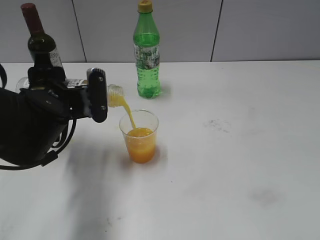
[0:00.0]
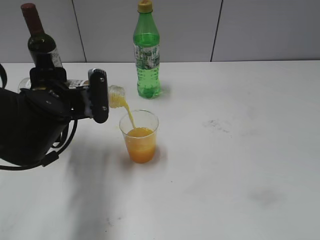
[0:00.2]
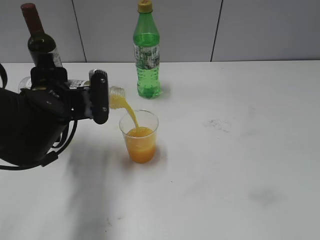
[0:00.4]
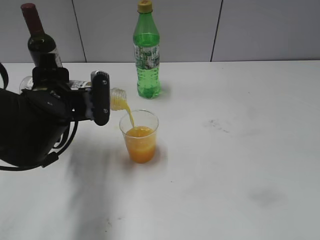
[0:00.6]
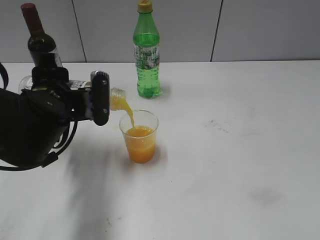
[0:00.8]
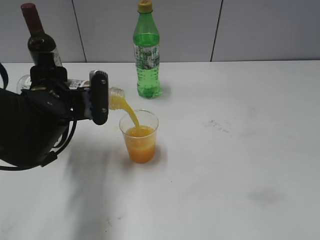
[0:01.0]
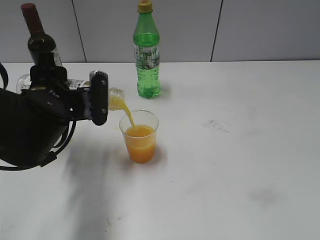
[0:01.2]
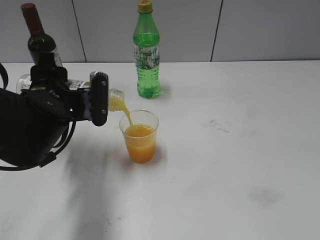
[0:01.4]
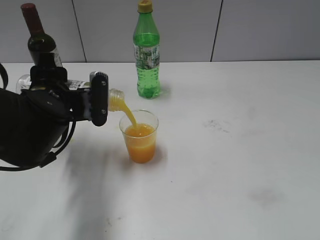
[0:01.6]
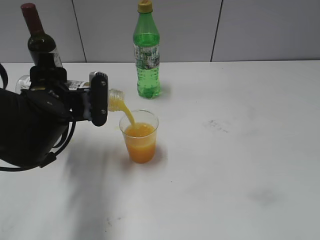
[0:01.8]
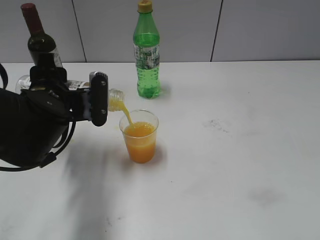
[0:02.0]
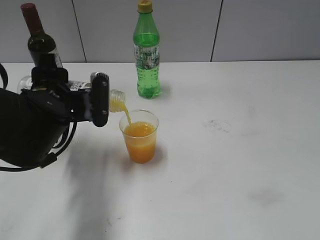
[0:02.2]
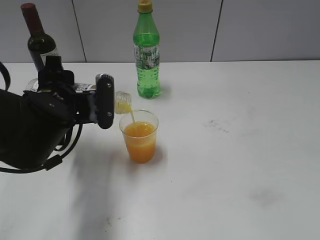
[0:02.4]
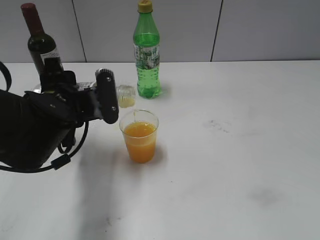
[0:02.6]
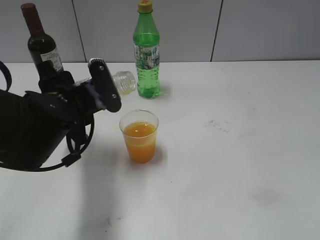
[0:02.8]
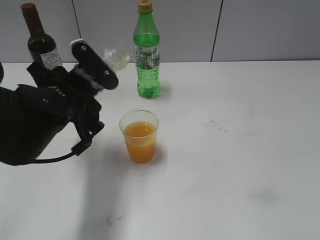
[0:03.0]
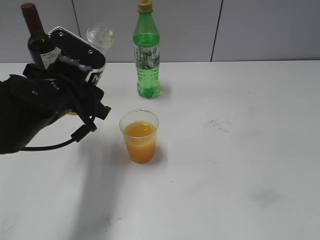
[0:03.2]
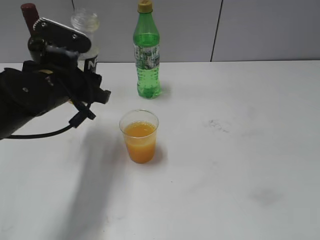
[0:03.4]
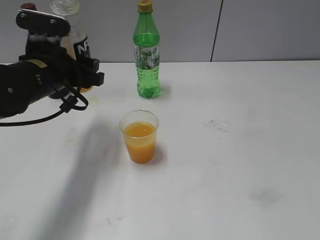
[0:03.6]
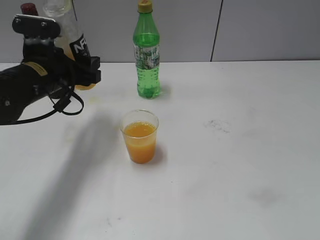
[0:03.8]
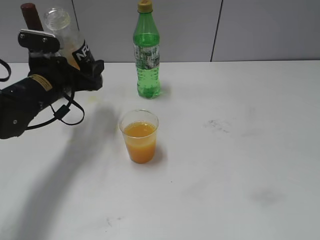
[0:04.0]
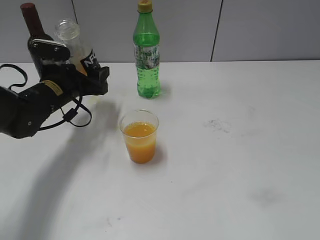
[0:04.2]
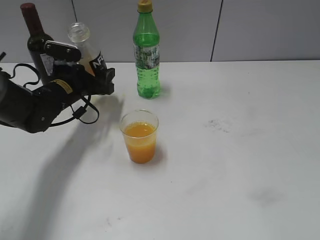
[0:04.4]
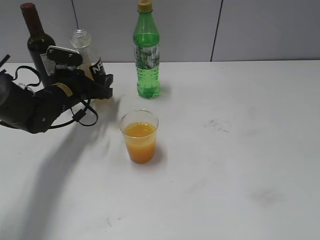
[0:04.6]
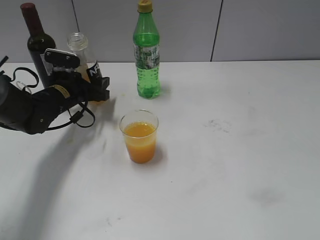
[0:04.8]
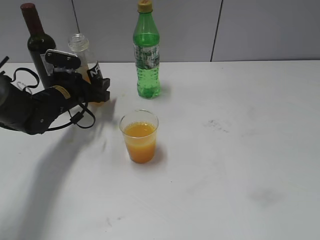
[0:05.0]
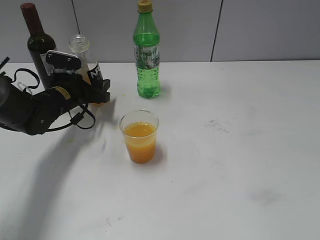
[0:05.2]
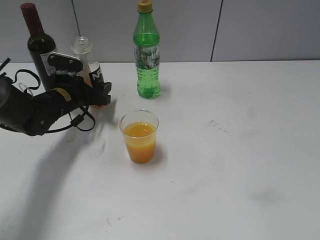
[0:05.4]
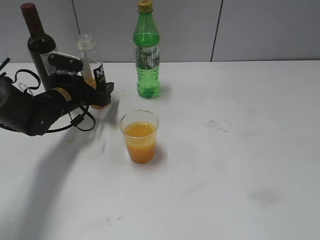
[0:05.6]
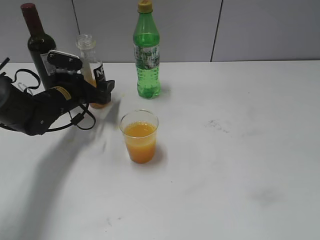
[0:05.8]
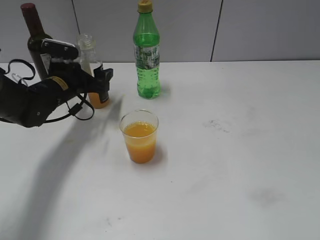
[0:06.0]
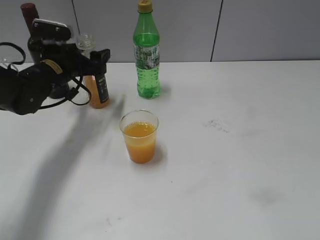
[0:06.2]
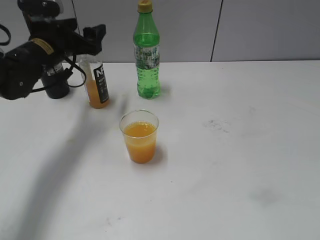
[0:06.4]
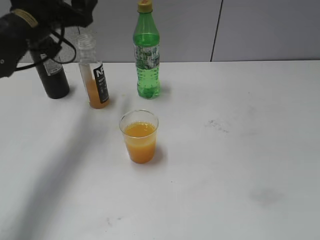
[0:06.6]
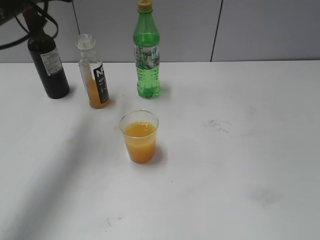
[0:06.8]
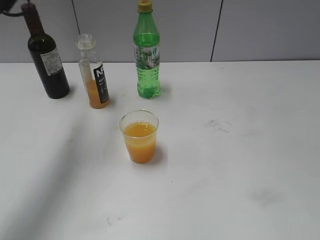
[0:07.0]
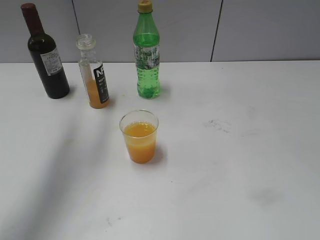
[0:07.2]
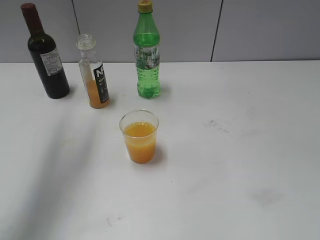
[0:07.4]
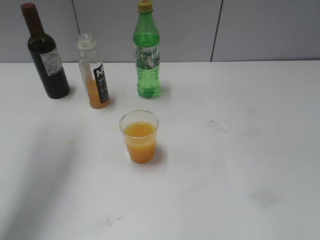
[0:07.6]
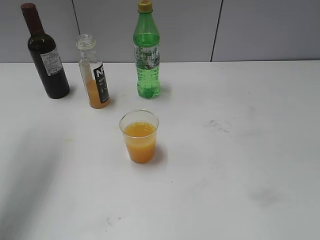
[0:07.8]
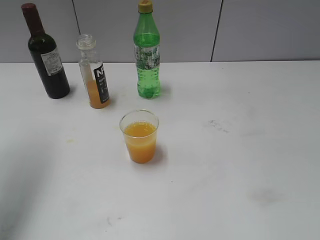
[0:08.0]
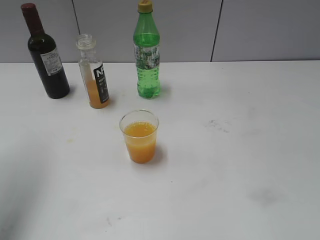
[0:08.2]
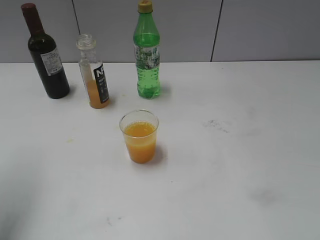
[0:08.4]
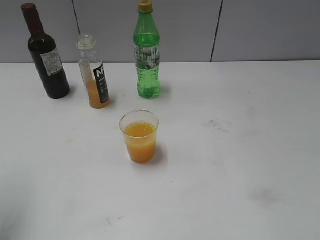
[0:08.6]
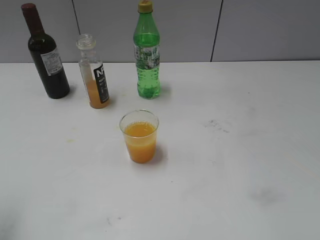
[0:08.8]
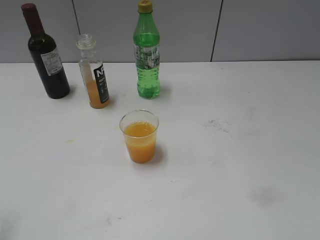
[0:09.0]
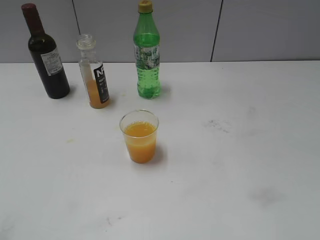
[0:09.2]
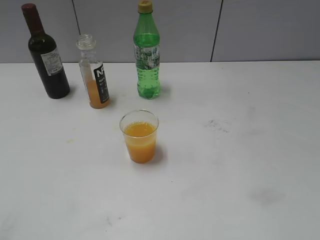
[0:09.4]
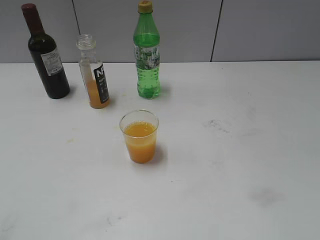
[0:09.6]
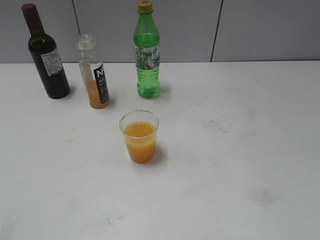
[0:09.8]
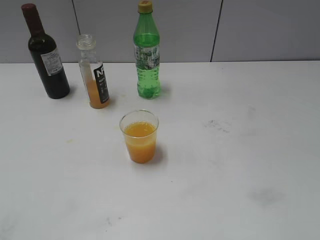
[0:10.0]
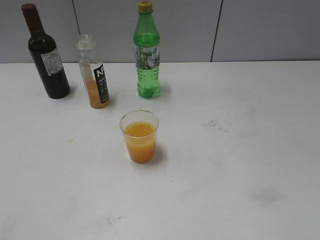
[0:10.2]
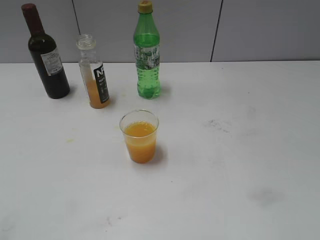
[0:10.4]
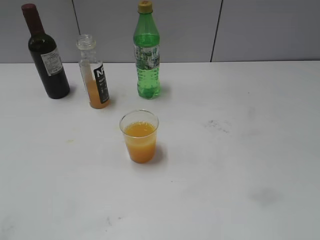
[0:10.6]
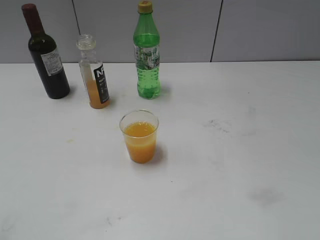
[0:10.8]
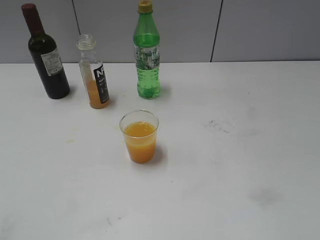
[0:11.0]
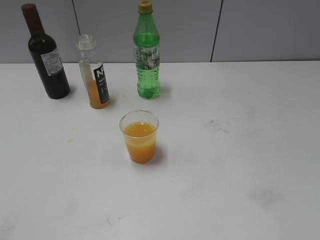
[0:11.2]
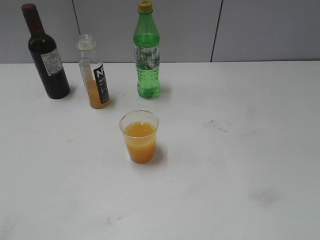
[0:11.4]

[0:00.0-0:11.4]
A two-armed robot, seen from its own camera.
Step, 0:00.0 to 0:02.6: Pour the orange juice from bottle to cup with left gripper.
Step, 0:02.8 to 0:05.8: Place the orange juice bottle on the table with left gripper.
0:00.0 to 0:01.4: Neither gripper changes place.
0:02.8 to 0:04.2: The left gripper goes roughly 10 cm forward.
0:04.2 to 0:05.6: The left gripper ends up some 5 cm from where it was, and opens up.
0:05.6 to 0:07.2: The left gripper goes some 30 cm upward.
0:07.2 to 0:08.6: The left gripper travels backward and to the left by some 15 cm.
0:08.6 to 0:10.0: The left gripper moves backward and downward, approximately 20 cm.
